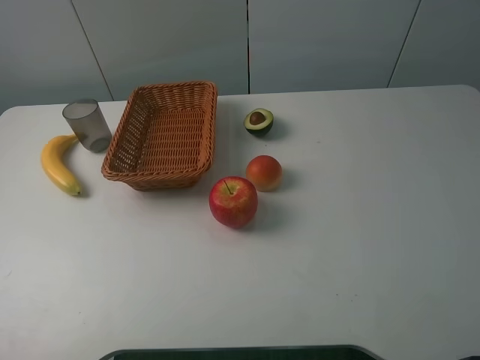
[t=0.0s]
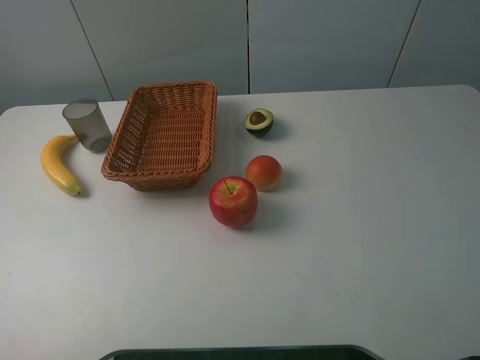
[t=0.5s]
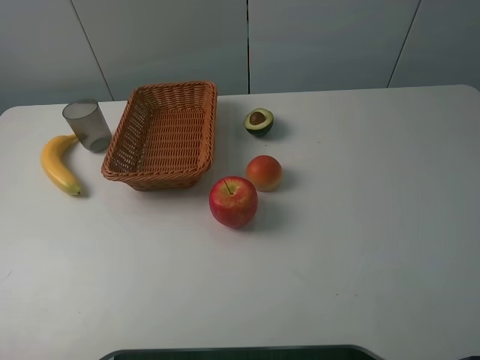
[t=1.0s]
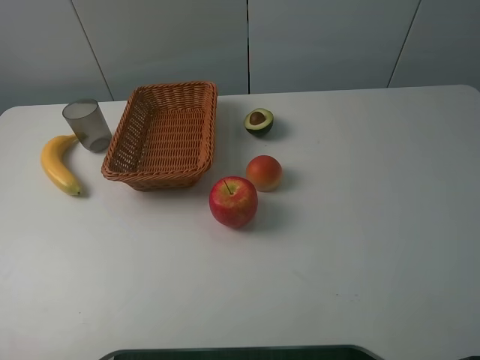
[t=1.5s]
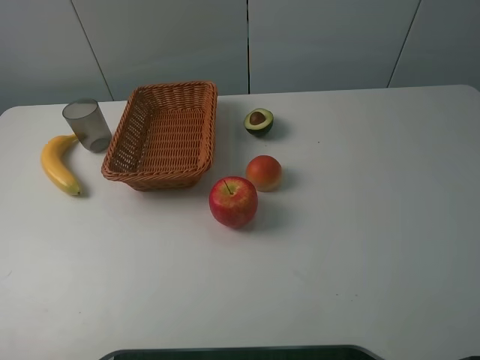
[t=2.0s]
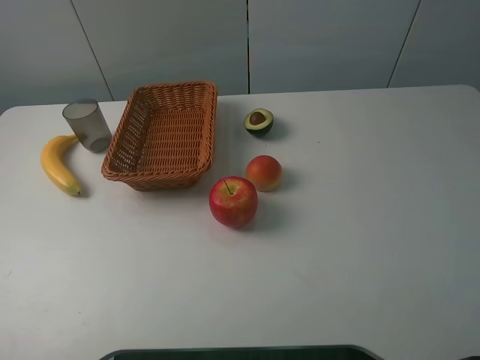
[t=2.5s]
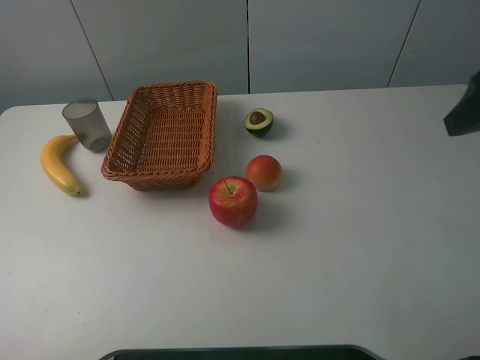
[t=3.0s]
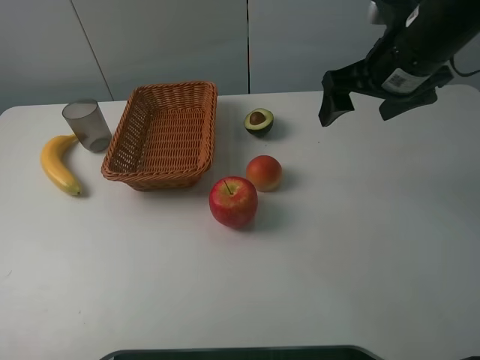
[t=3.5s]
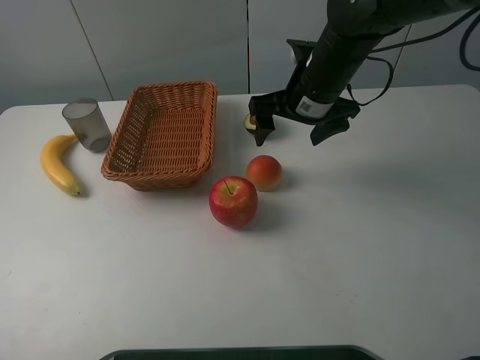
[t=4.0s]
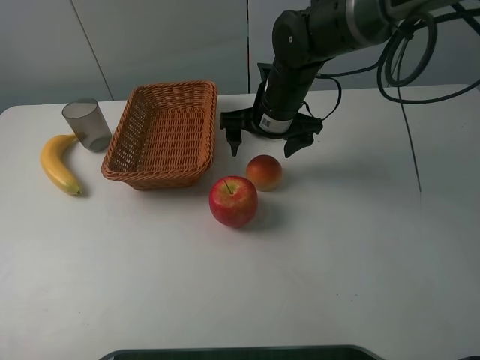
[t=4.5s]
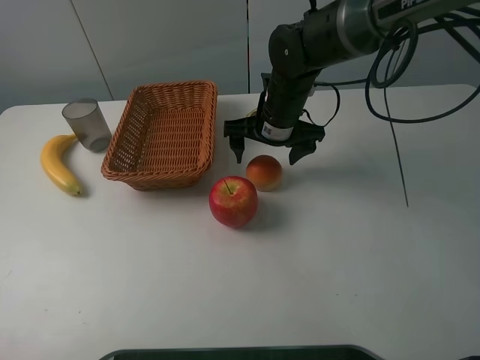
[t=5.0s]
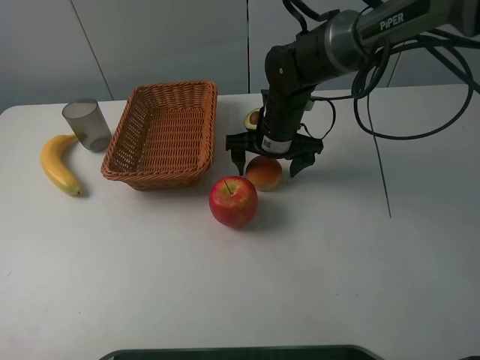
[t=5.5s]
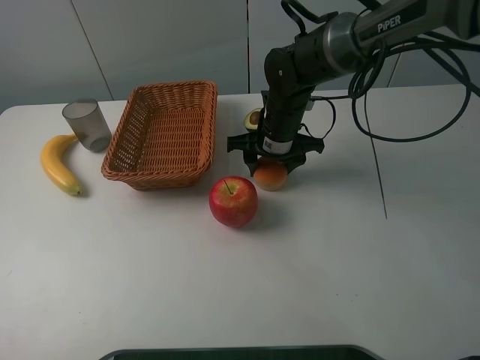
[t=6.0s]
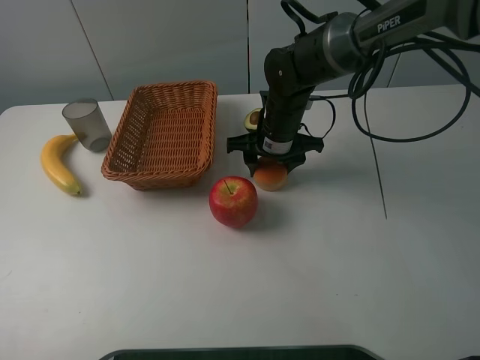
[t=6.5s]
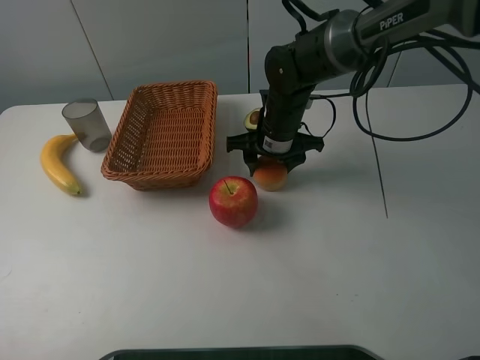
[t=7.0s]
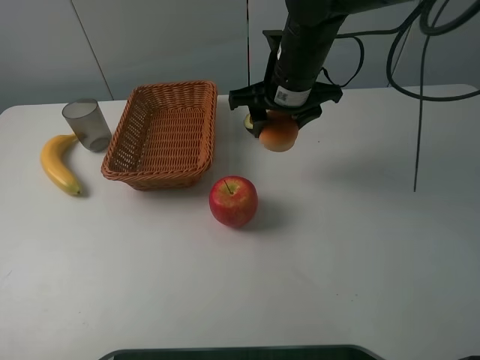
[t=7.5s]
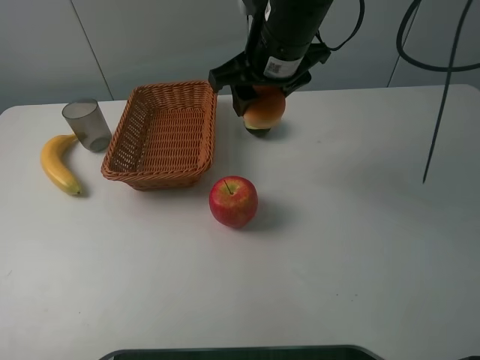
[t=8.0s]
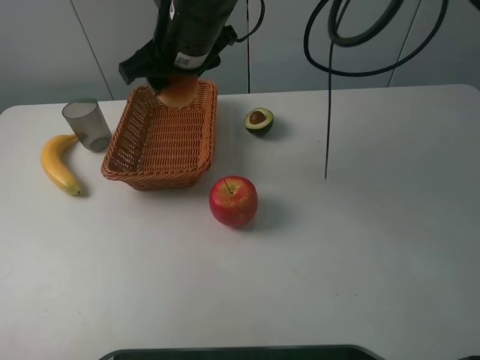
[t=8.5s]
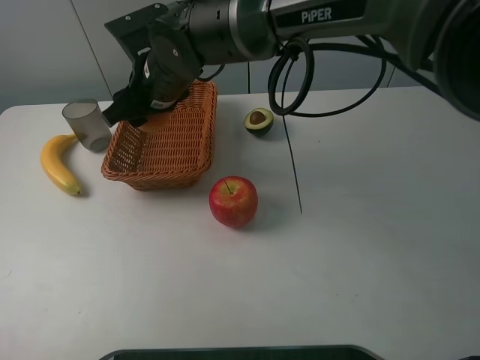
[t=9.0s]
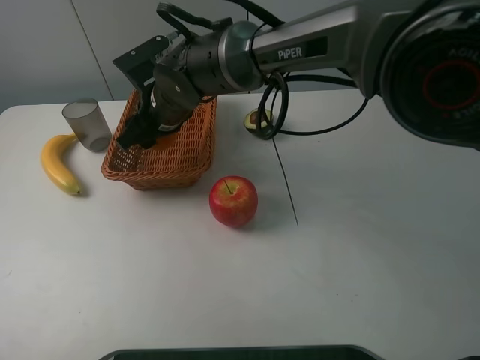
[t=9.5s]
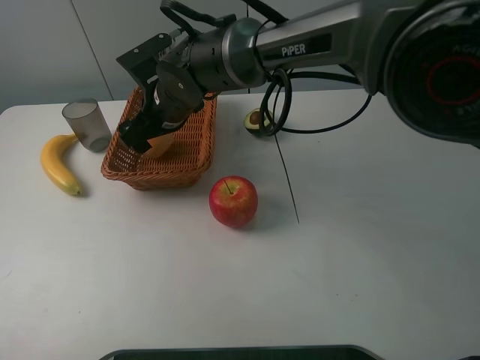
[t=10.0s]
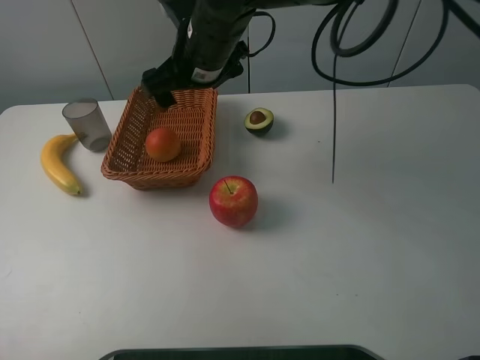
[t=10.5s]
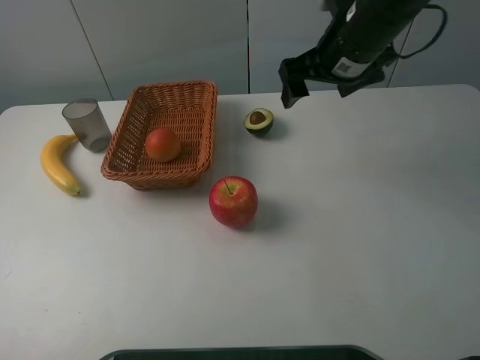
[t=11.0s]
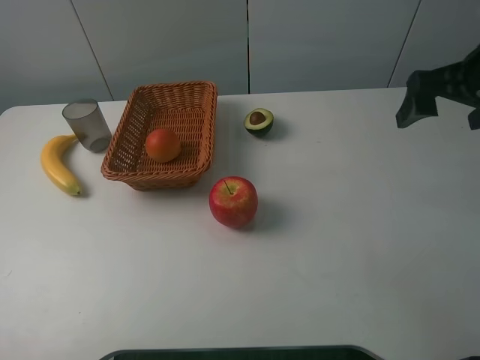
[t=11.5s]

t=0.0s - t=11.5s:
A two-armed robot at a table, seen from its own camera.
t=0.0s - t=2.0s: Both grippers stay about where they are.
t=2.0s - t=4.0s: The right gripper heads forward and to the left, covering about 40 cm.
t=4.0s - t=6.0s: The right gripper shifts roughly 10 cm downward, and closes its fingers.
t=6.0s - t=7.5s: The right gripper moves upward, some 10 cm.
t=7.5s - t=9.5s: The right gripper travels to the left by some 15 cm.
t=9.5s - t=11.5s: The right gripper heads to the right, covering about 35 cm, and opens its fingers.

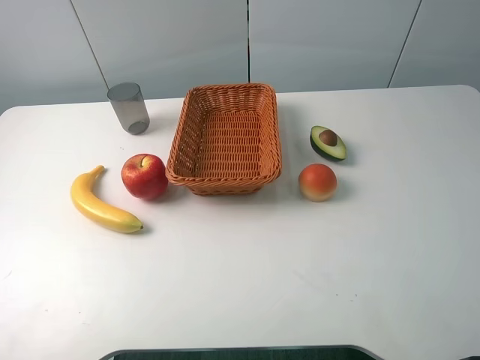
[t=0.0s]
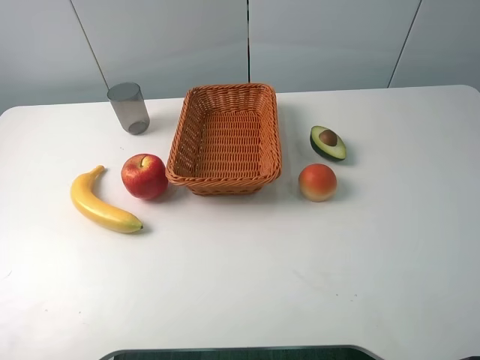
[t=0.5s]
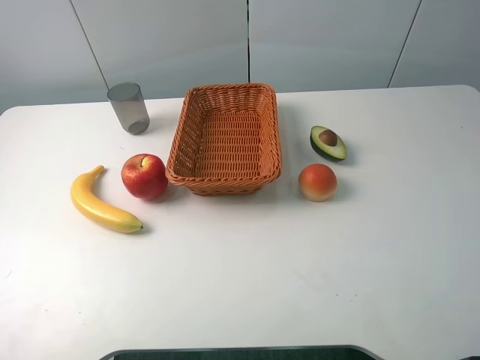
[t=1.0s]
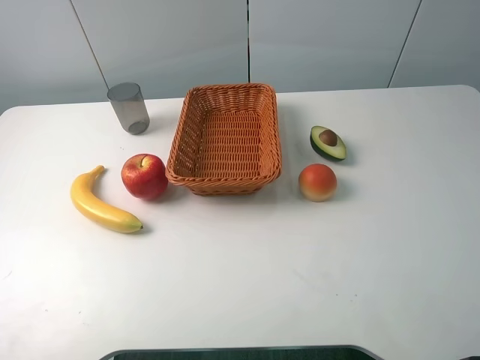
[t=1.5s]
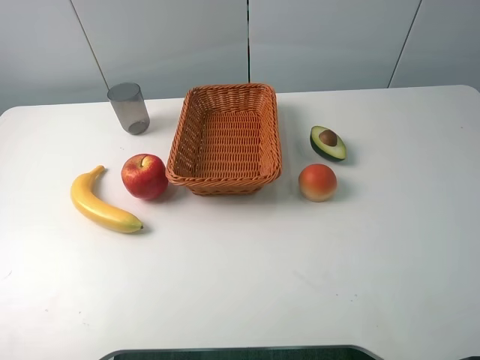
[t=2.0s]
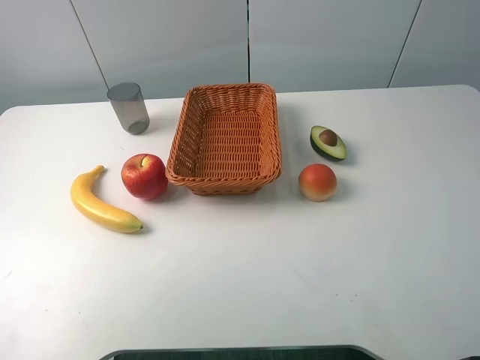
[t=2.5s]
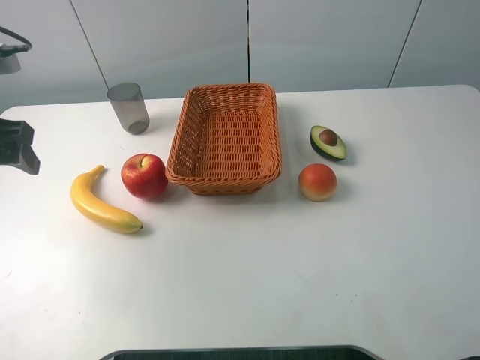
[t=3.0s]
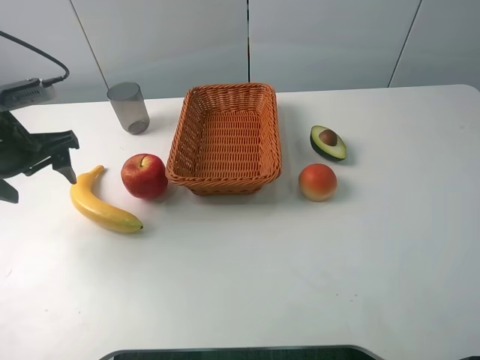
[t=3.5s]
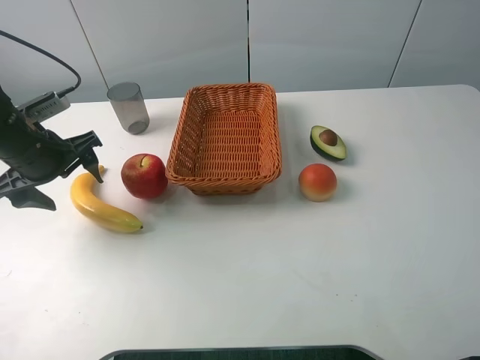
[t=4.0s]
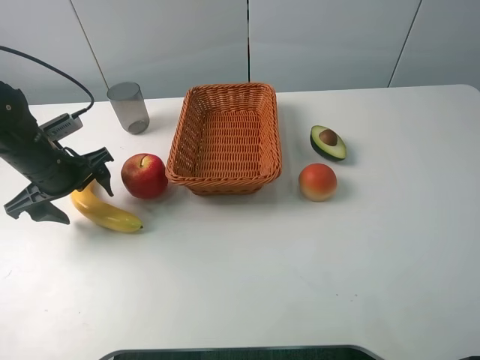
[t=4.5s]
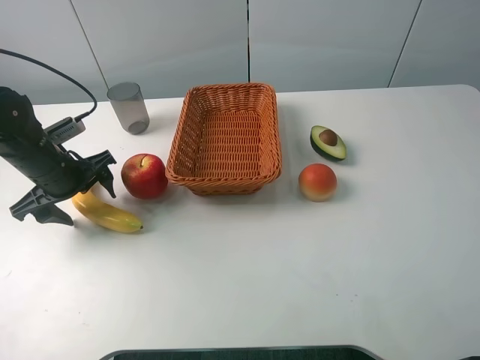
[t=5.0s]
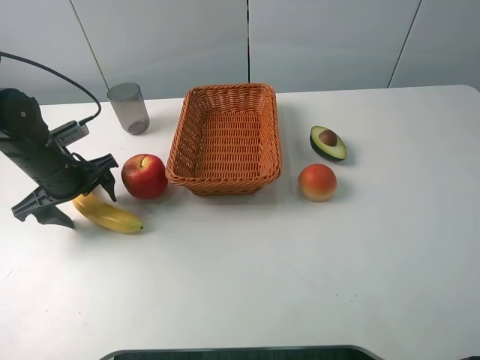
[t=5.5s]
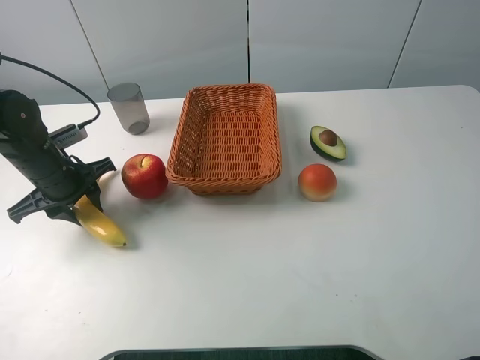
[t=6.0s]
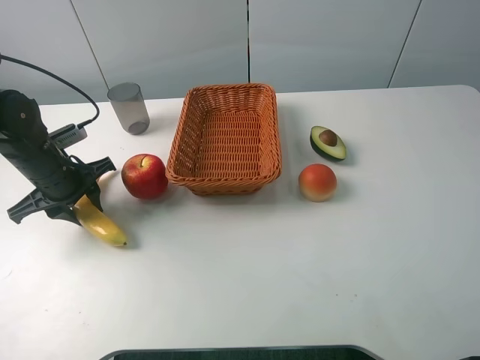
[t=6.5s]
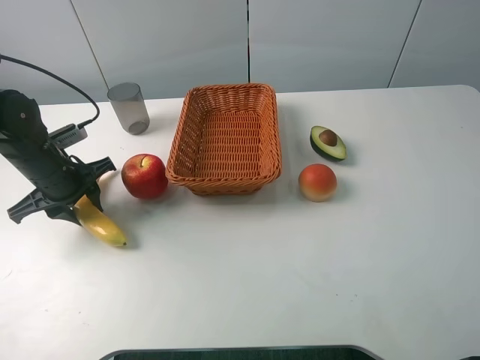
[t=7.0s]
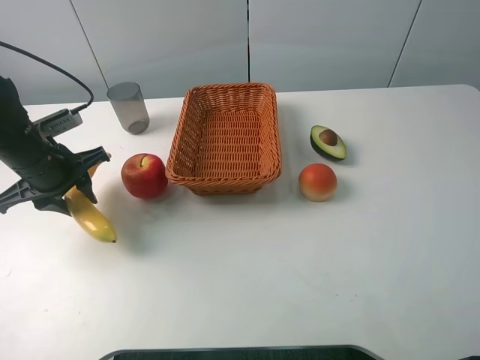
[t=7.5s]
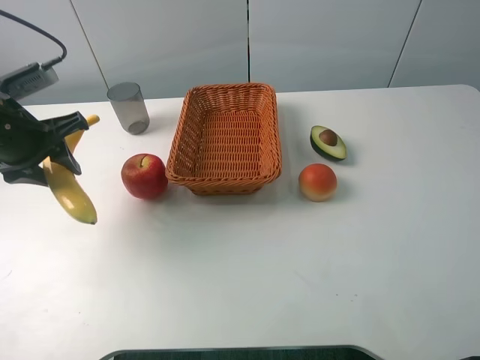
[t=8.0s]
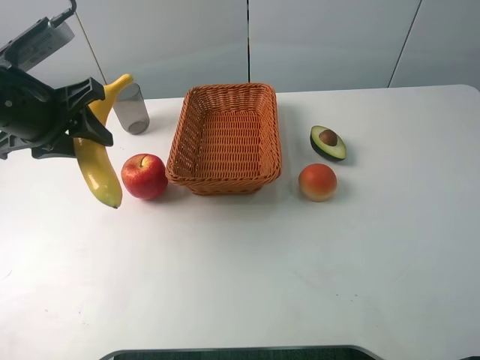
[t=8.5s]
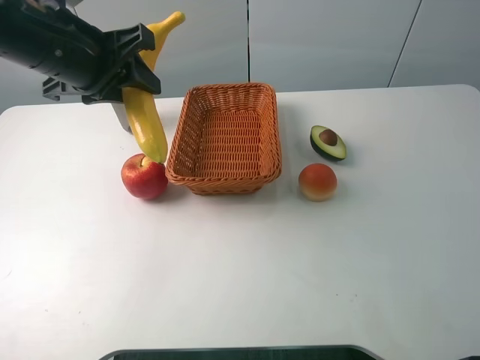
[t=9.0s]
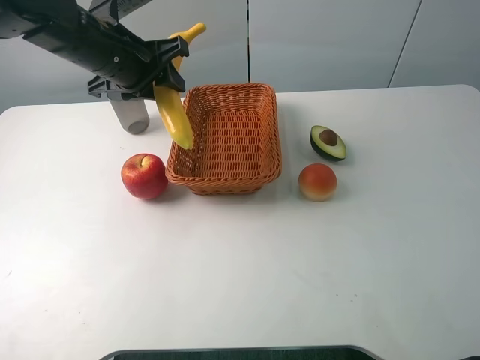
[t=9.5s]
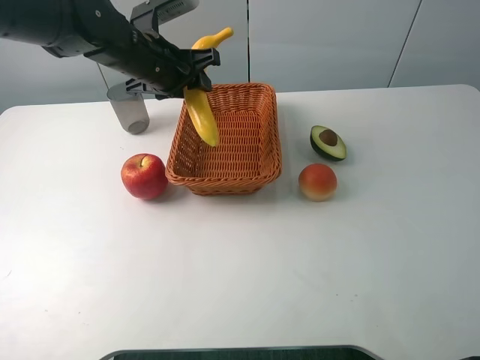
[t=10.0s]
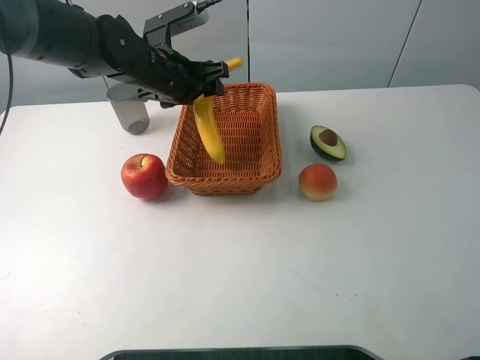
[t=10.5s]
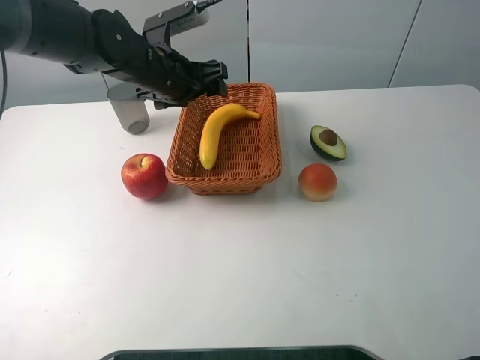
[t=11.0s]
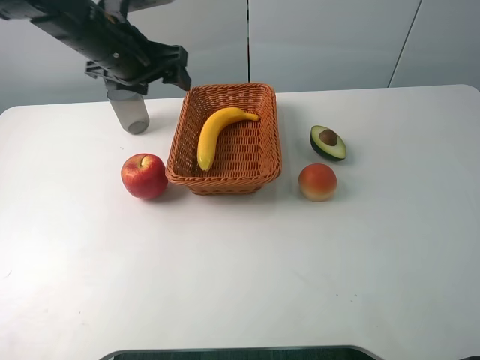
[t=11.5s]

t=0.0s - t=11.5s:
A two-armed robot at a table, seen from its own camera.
t=2.0s - t=4.0s: The left gripper shifts roughly 35 cm forward and downward.
t=4.0s - t=6.0s: The left gripper goes roughly 5 cm downward, and closes up.
t=6.0s - t=7.5s: The grippers make only small movements.
t=7.5s - t=9.5s: The left gripper travels to the right, upward and forward by some 15 cm.
t=9.5s - t=11.5s: The left gripper opens up.

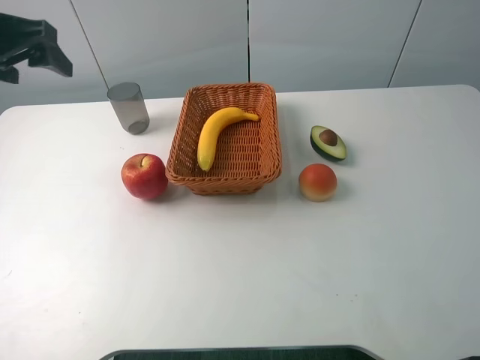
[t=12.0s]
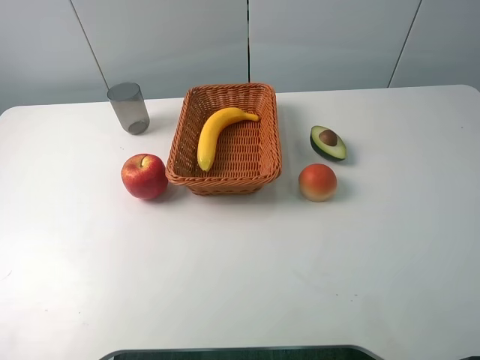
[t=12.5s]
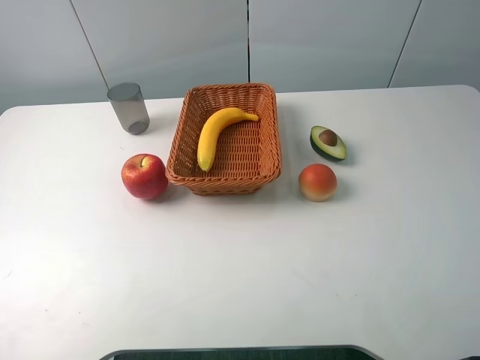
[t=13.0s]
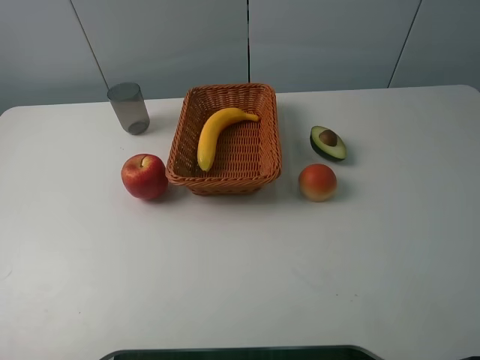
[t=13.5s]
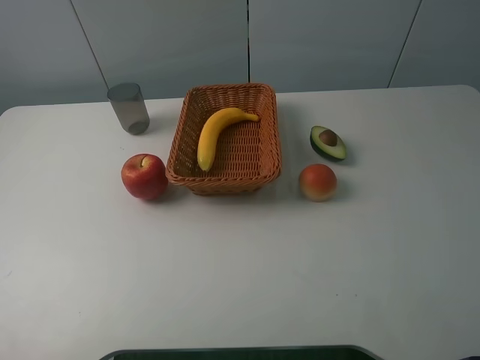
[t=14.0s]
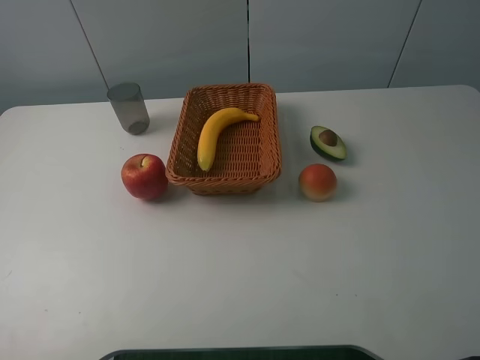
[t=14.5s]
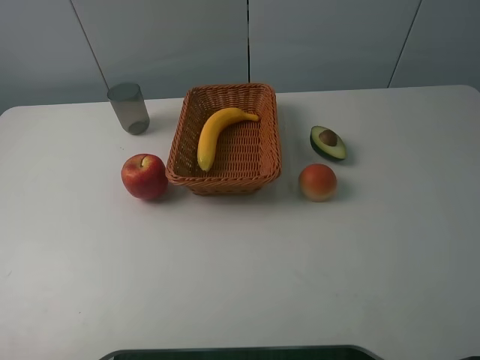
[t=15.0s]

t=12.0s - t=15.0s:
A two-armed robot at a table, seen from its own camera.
t=12.0s - t=13.5s: The left gripper shifts about 30 cm backward.
t=13.5s - t=15.0s: The two grippers keep their place.
